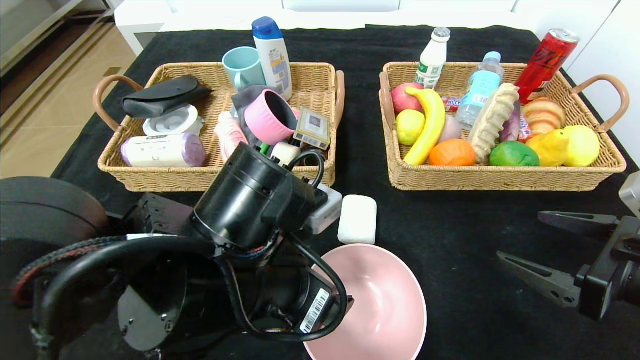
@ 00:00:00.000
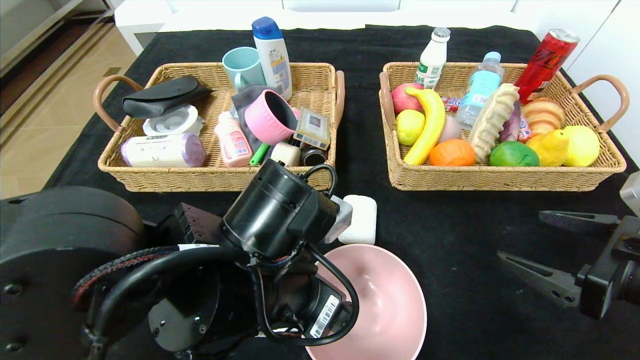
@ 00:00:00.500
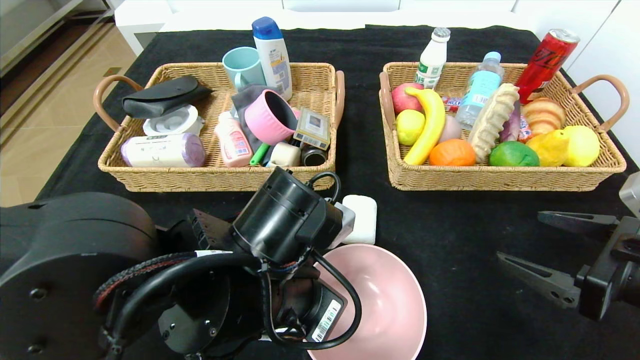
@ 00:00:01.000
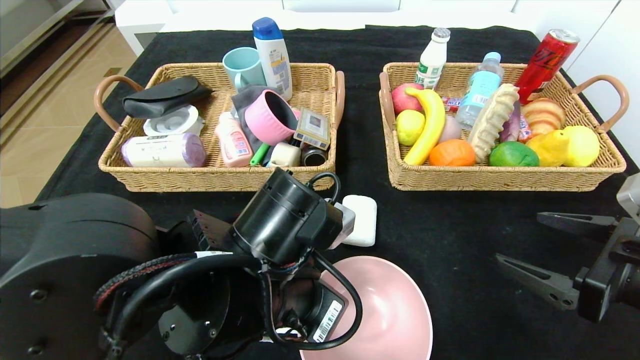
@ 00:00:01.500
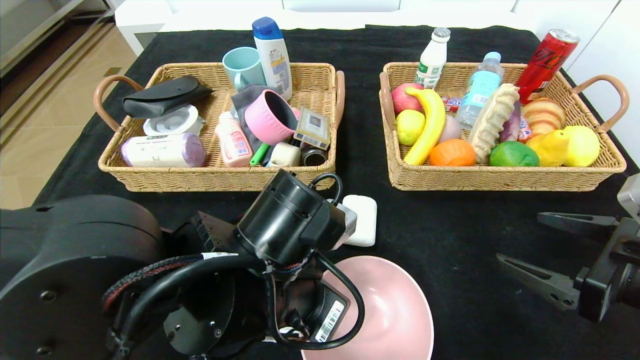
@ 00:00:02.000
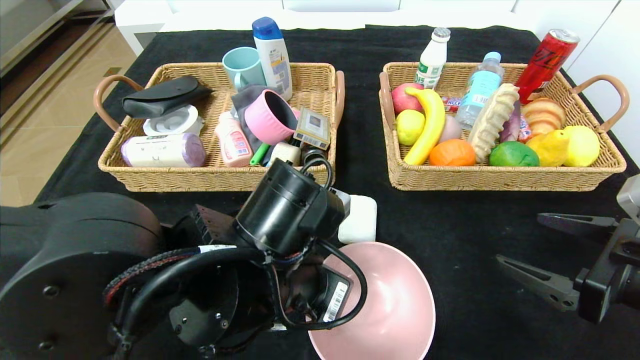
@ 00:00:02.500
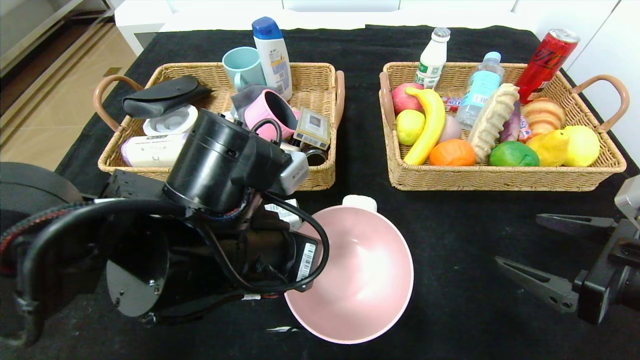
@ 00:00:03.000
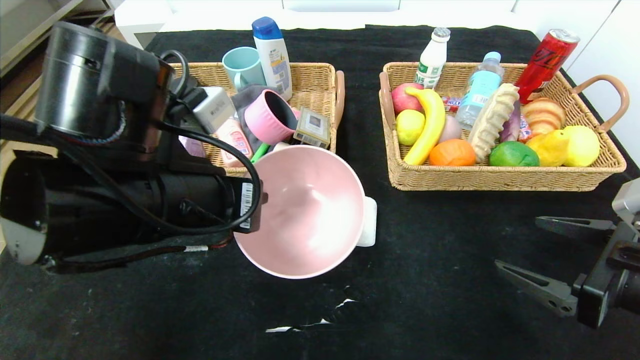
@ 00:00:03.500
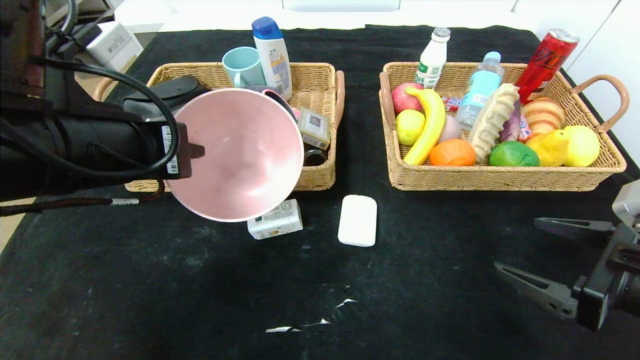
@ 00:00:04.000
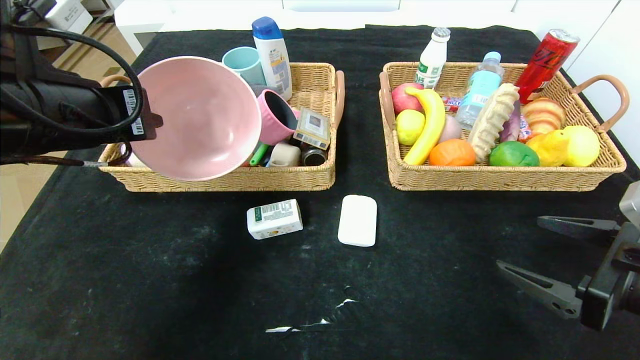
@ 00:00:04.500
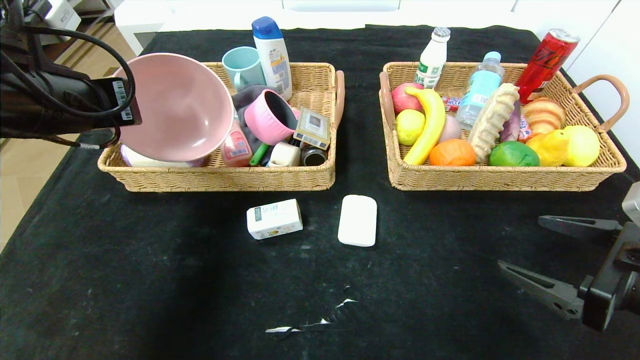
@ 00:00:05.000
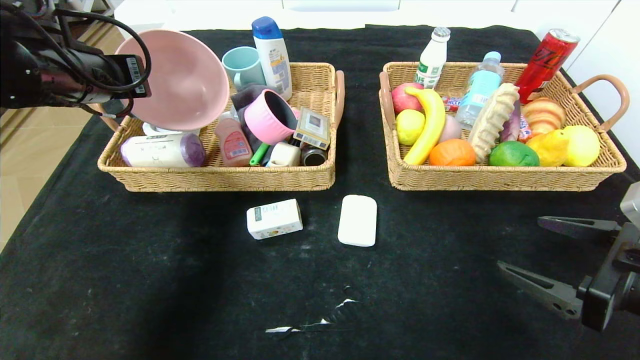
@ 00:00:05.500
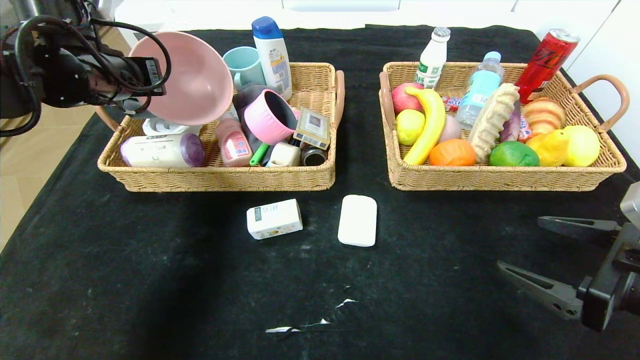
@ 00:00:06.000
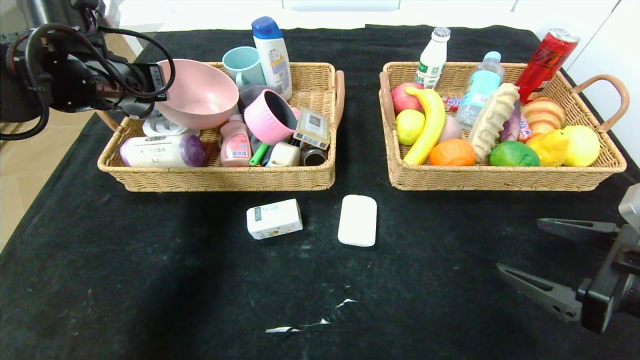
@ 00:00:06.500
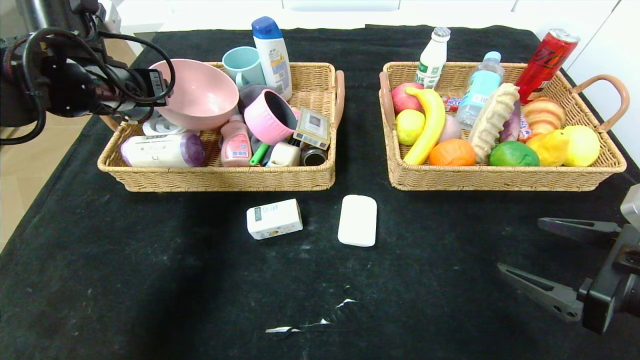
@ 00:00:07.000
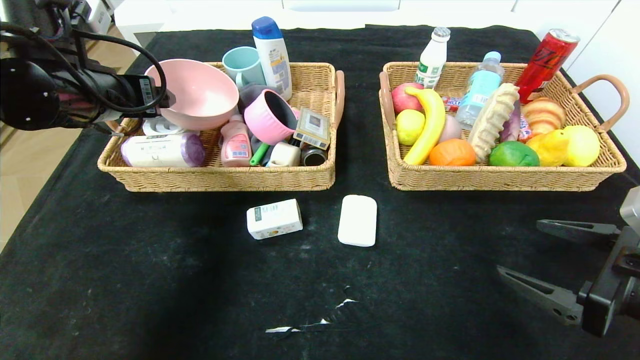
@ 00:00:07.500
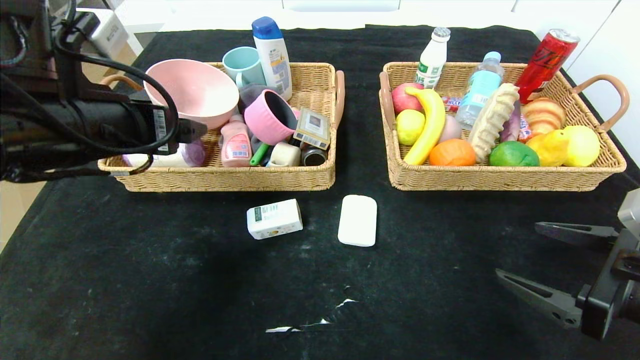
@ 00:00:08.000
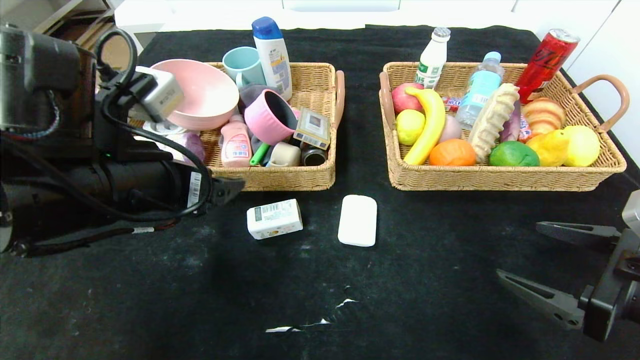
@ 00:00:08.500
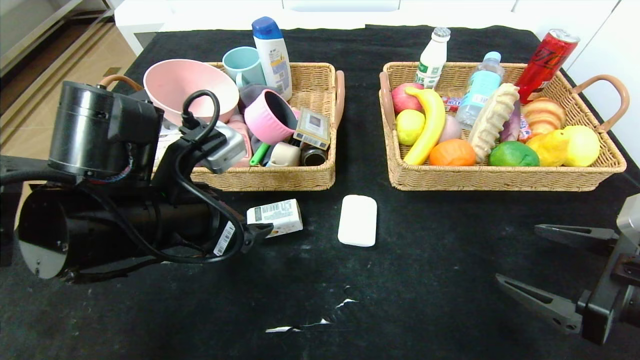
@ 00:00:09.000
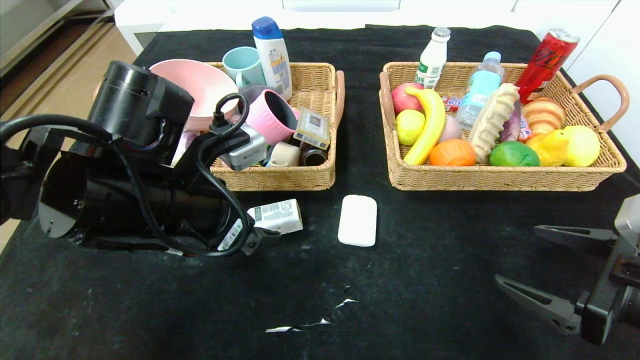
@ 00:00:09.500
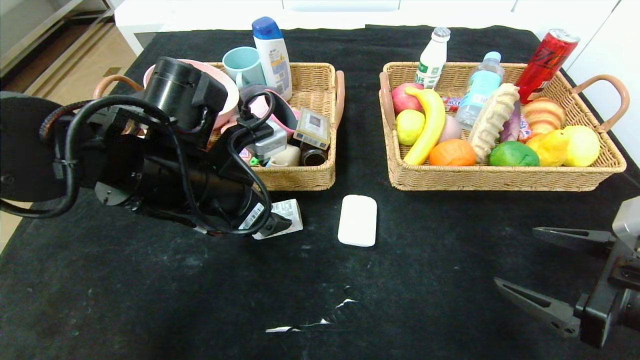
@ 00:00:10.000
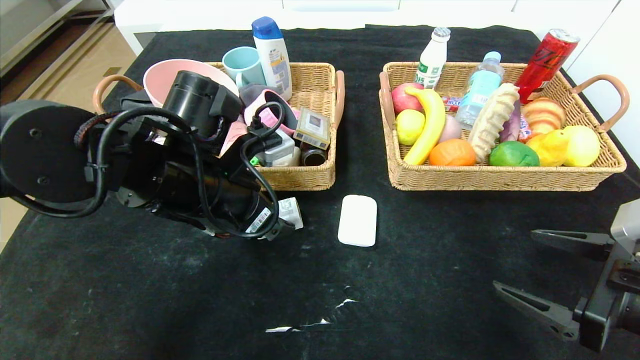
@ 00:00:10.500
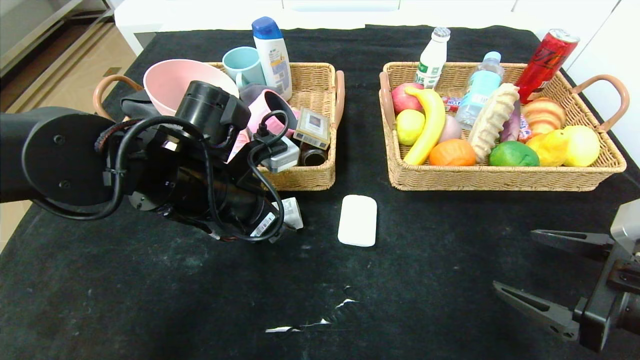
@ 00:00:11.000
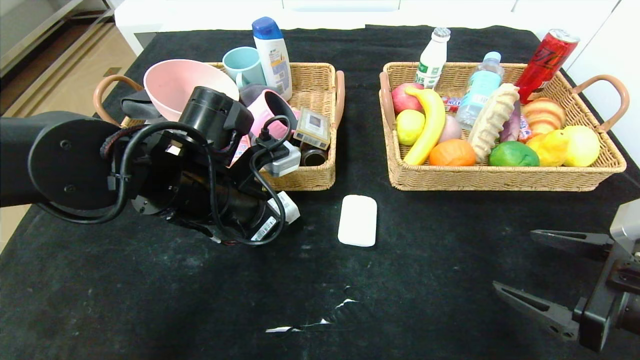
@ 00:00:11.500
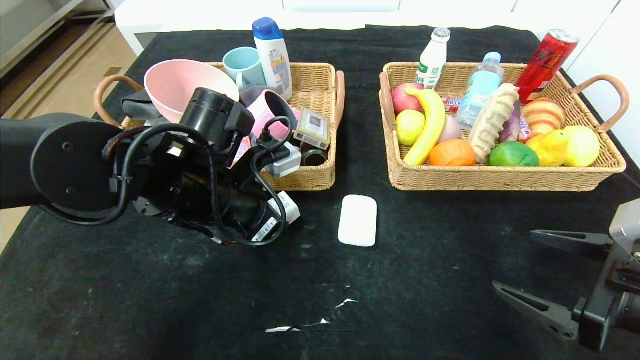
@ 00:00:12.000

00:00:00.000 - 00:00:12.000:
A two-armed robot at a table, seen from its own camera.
Step, 00:00:00.000 - 00:00:06.500: Grasp the pink bowl and put it in the left basket.
00:00:00.000 - 00:00:02.000: The left gripper closes.
00:00:02.000 - 00:00:04.000: The left gripper travels to the left and upward by roughly 20 cm.
00:00:04.000 - 00:00:06.000: The left gripper travels forward and to the left by approximately 15 cm.
00:00:06.000 - 00:00:08.000: The left gripper goes some 15 cm backward and to the right, and opens.
00:00:08.000 - 00:00:10.000: The left gripper travels to the right and downward by about 10 cm.
00:00:10.000 - 00:00:12.000: The left gripper closes.

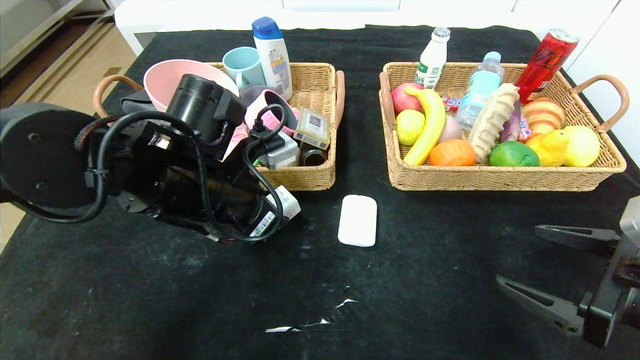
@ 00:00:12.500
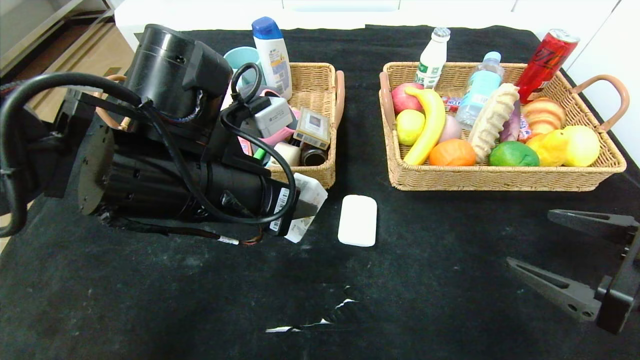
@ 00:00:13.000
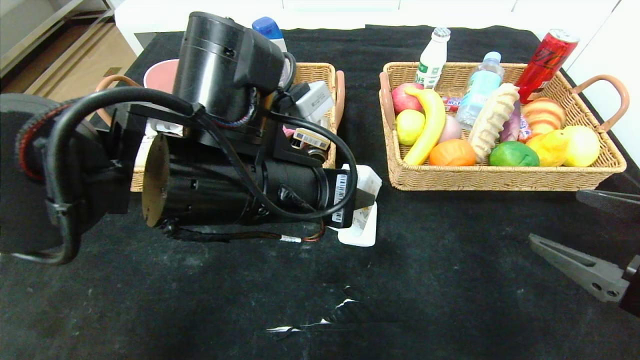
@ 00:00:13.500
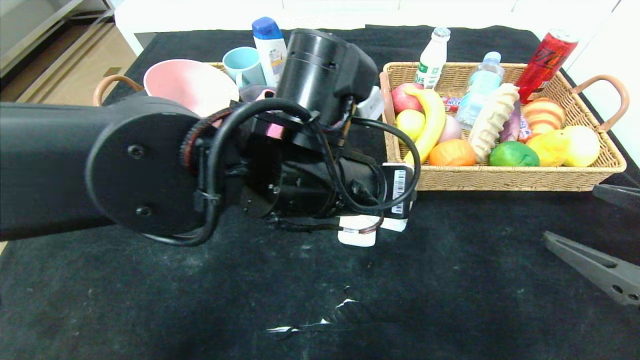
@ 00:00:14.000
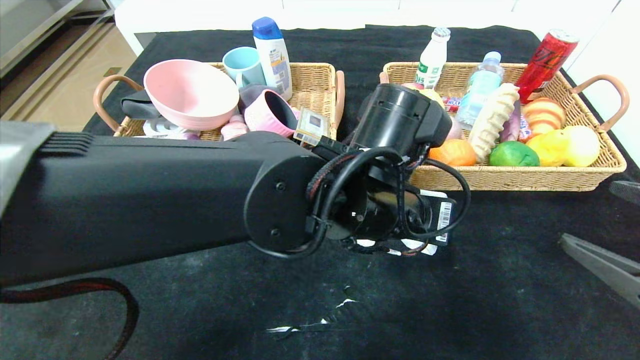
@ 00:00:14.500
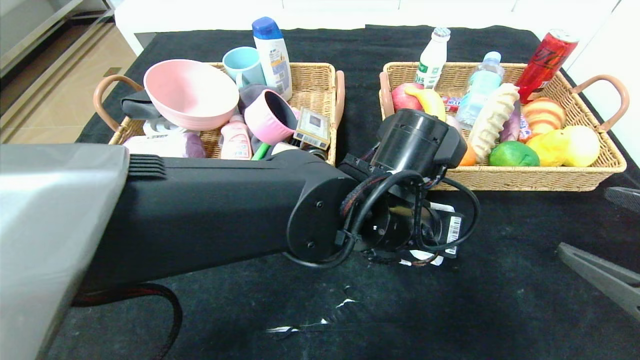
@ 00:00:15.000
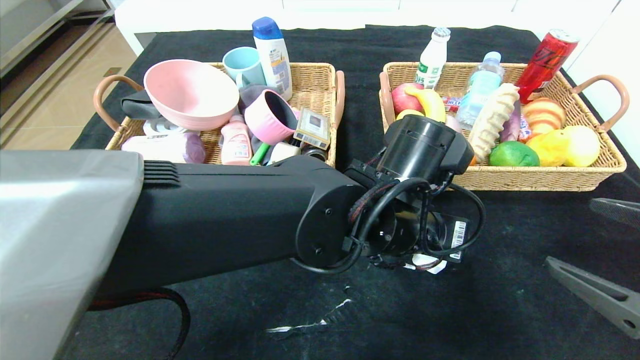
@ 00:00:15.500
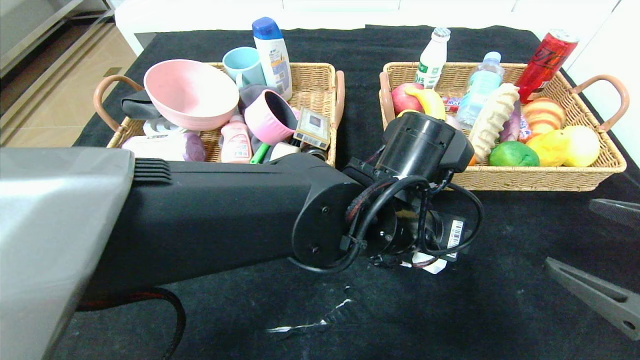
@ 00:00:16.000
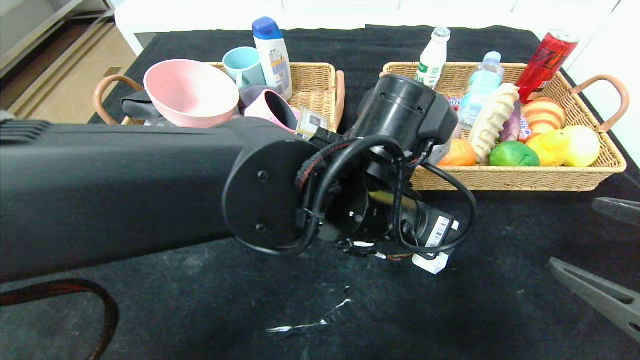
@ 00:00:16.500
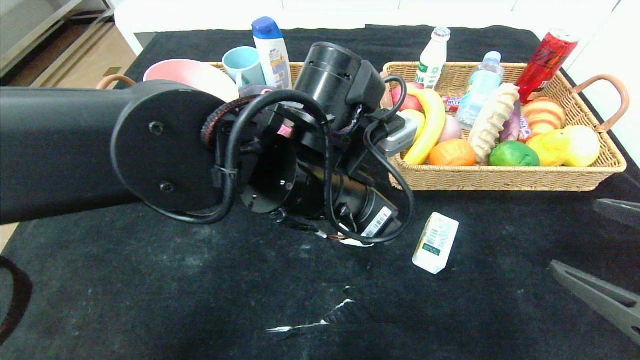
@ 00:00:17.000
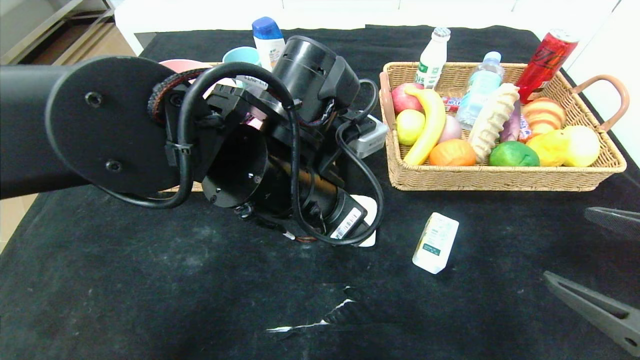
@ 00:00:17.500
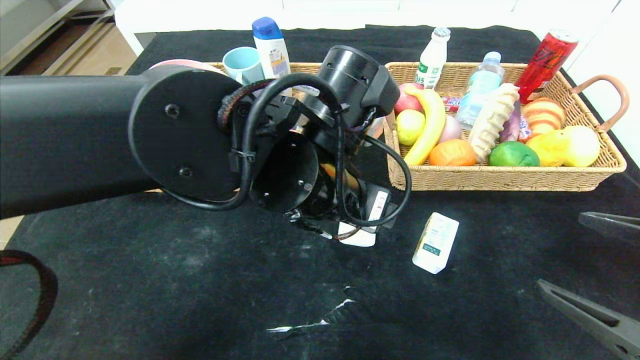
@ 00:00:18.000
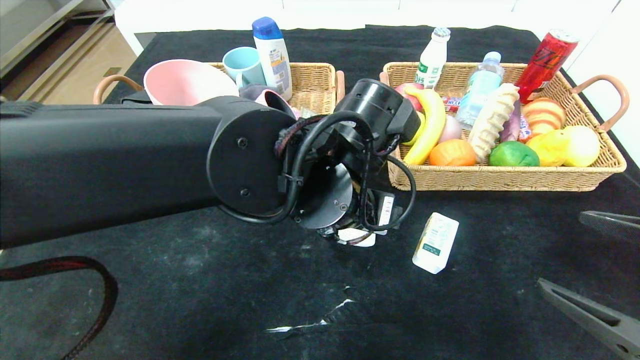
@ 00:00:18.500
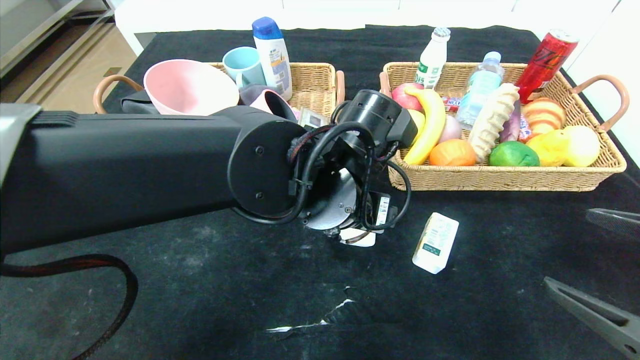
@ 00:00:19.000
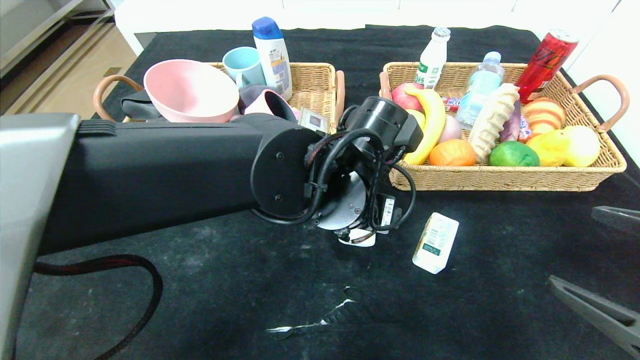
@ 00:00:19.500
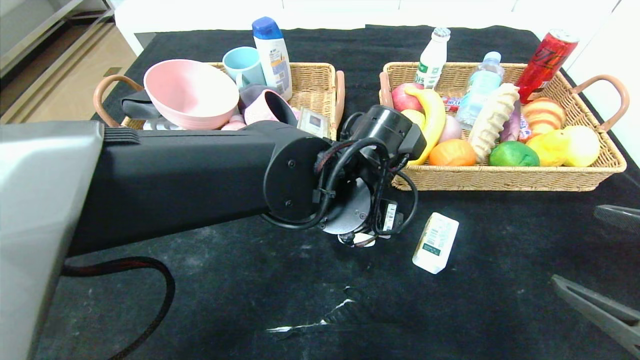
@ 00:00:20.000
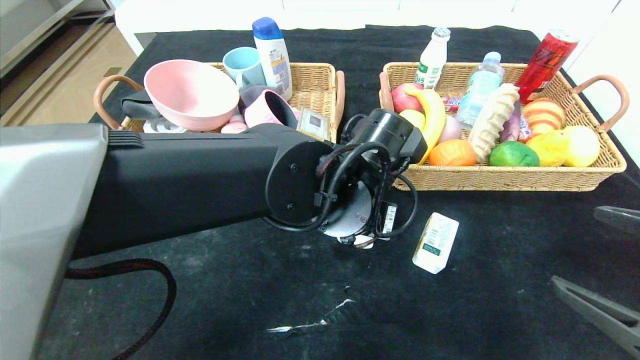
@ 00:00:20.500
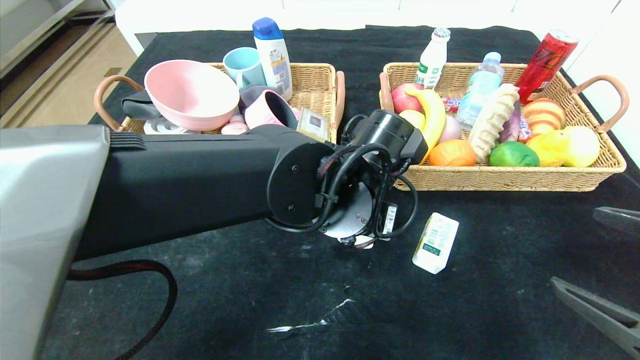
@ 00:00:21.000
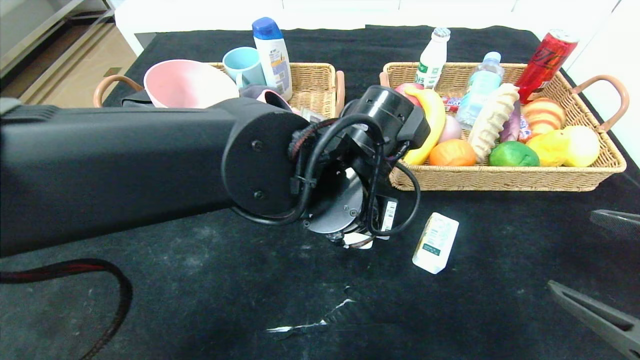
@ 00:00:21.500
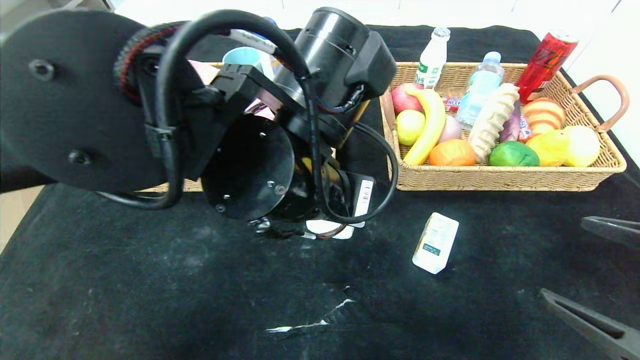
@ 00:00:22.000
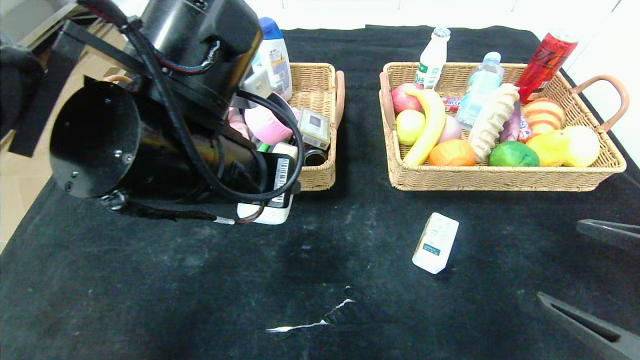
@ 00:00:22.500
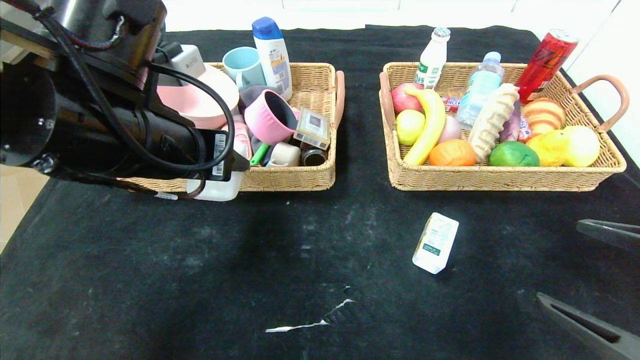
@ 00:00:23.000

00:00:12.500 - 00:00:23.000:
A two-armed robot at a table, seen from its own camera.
Step, 00:00:12.500 - 00:00:15.500: Place the square chewing gum in the center of the table.
00:00:12.500 - 00:00:14.500: The left gripper is displaced to the right by some 20 cm, while the right gripper shifts by some 5 cm.
00:00:14.500 - 00:00:16.500: The left gripper opens.
00:00:19.000 - 00:00:21.000: The left gripper closes its fingers.
00:00:21.000 - 00:00:23.000: The left gripper is displaced to the left and upward by approximately 20 cm.
